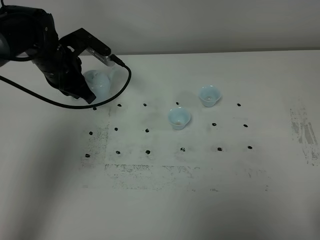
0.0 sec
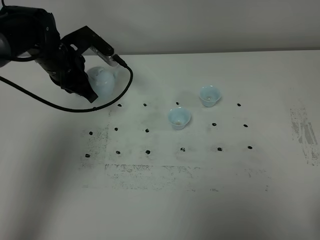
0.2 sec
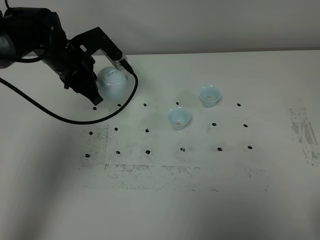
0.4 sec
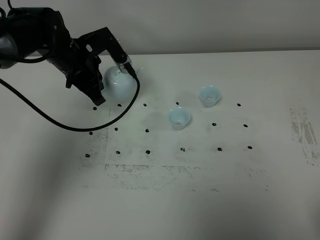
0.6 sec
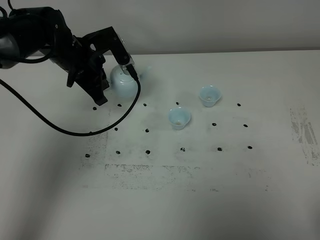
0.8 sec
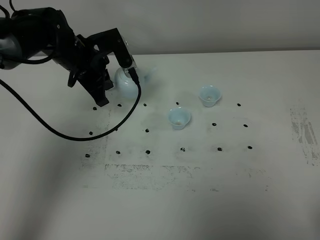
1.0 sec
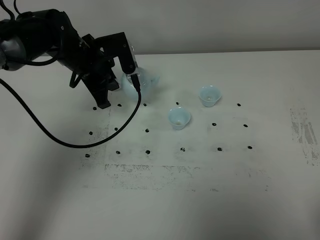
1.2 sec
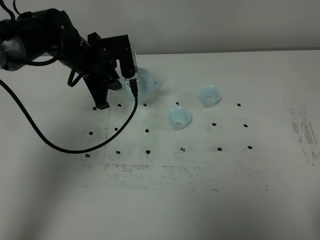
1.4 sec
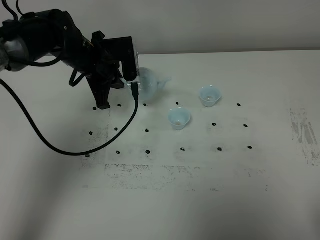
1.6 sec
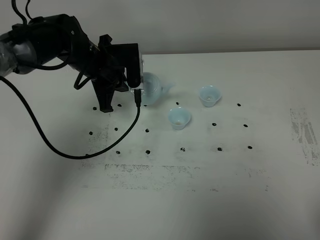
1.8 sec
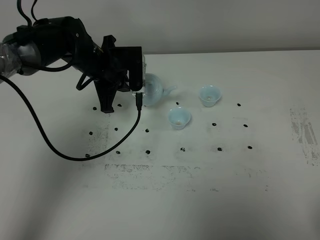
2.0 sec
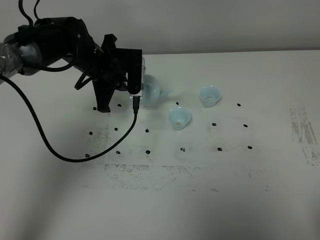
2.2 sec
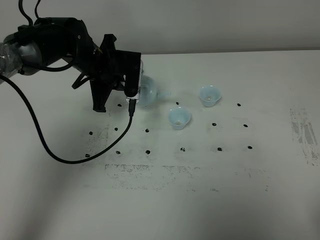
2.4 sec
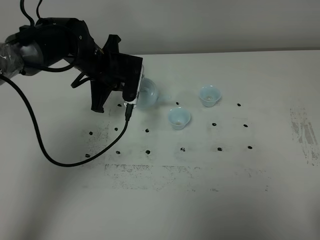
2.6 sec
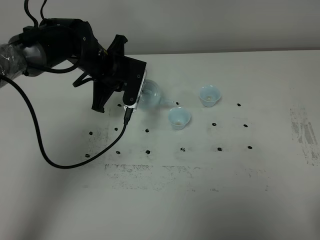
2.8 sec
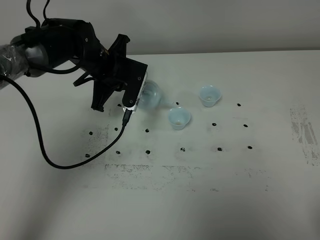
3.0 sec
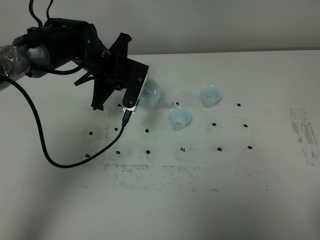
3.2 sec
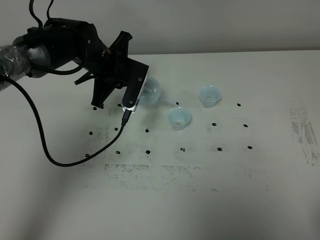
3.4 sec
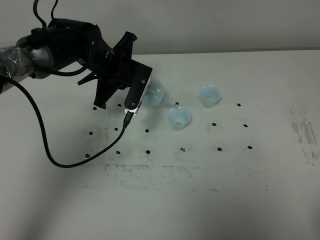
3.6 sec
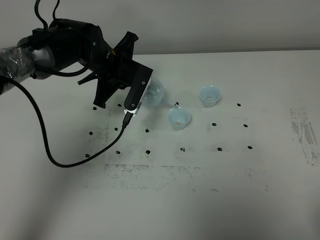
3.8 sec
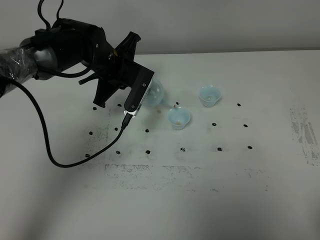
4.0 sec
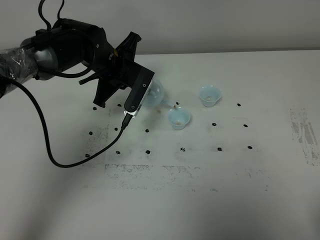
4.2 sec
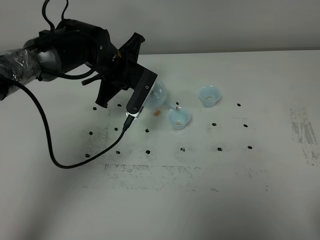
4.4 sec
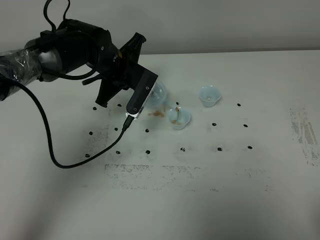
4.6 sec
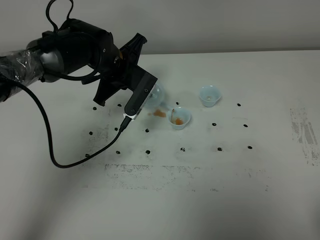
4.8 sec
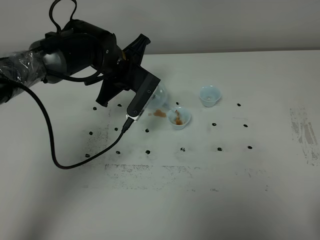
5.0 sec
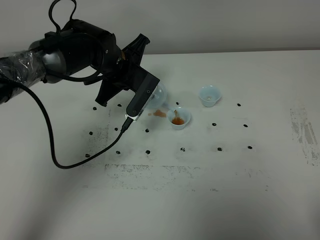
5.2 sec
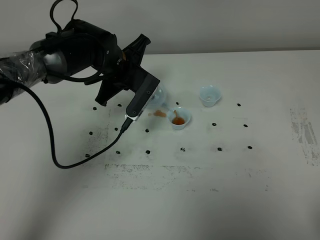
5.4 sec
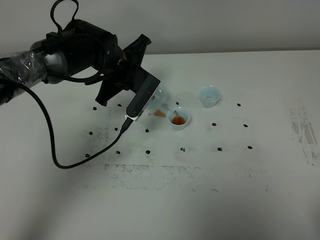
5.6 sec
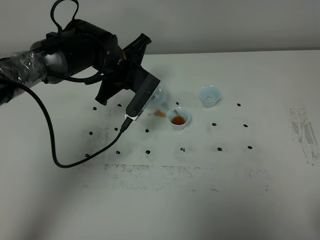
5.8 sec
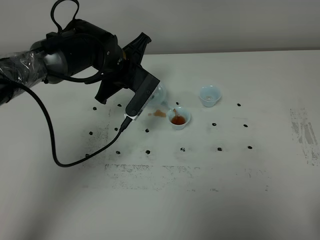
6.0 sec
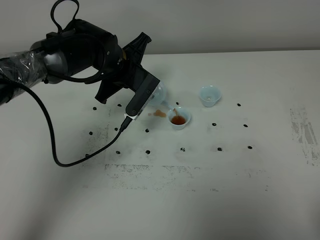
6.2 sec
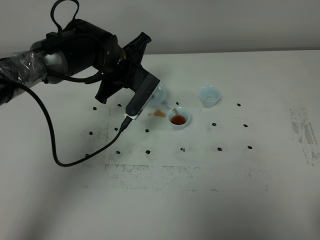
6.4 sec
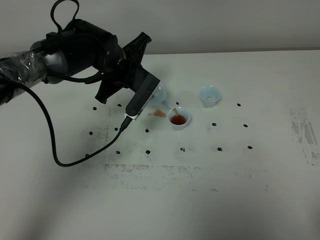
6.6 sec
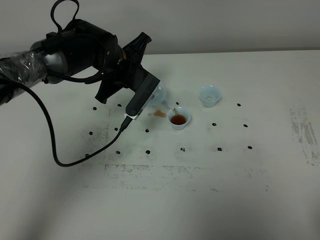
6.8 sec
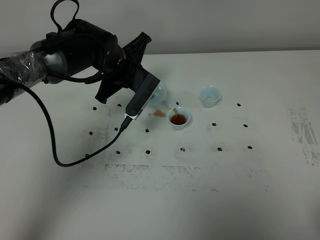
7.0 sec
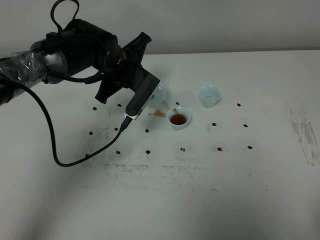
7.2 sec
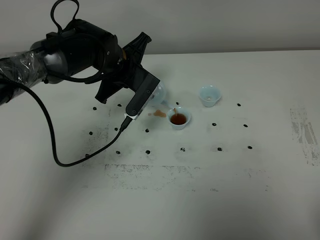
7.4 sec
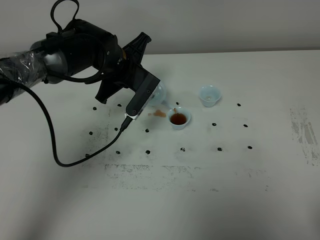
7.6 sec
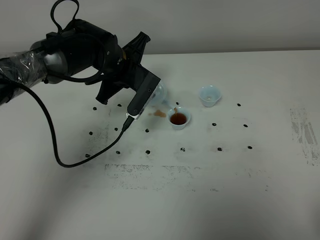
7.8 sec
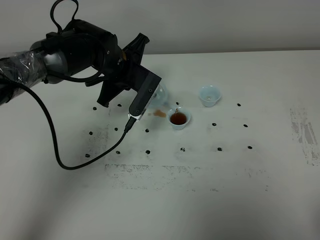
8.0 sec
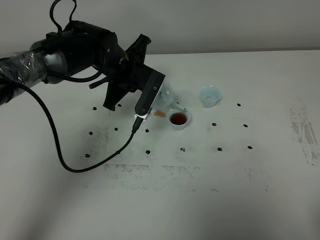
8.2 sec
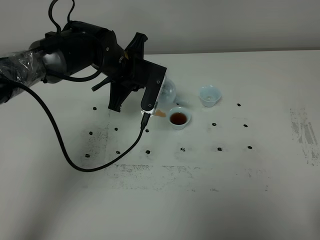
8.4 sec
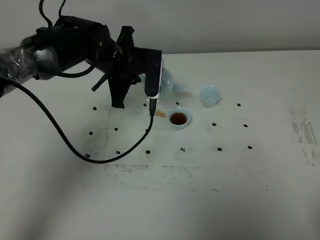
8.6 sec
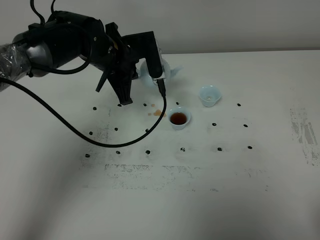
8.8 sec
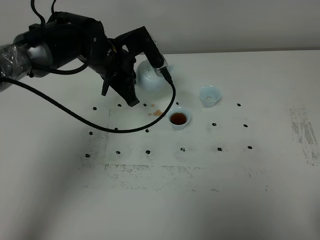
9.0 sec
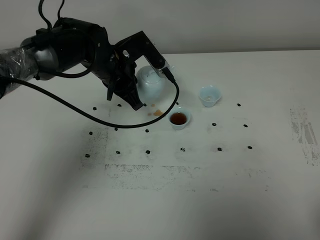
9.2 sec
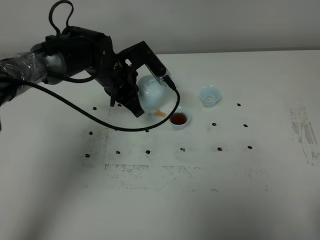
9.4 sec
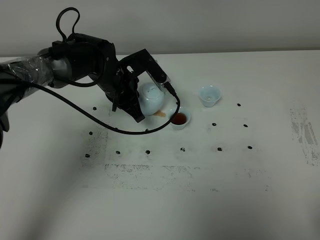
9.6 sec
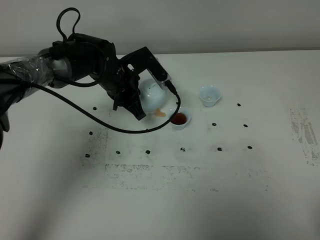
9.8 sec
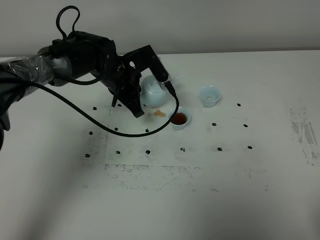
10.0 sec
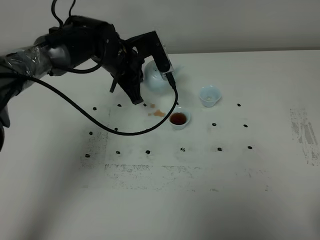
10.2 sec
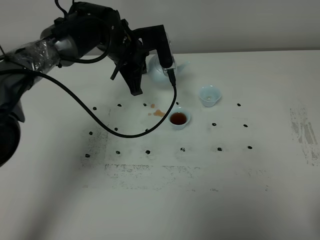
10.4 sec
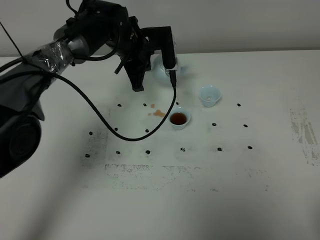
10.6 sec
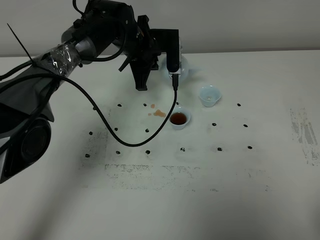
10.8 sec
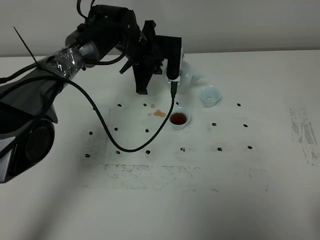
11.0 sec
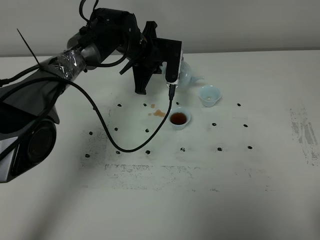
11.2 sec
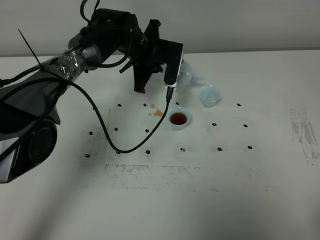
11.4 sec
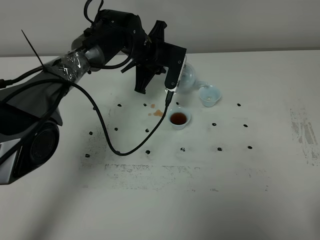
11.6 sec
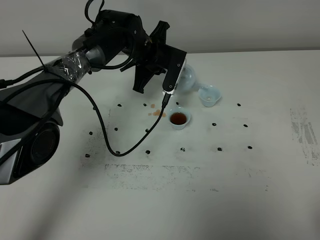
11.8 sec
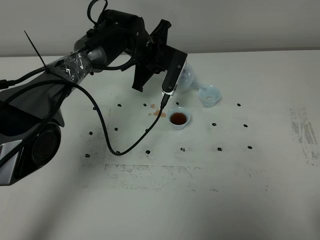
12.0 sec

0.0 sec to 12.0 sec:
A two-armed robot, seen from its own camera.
Task of the whole recording: grasp the blue porcelain teapot and pour the tea into the two blue porcelain teacups one by one, put the blue porcelain teapot back in its original place.
0.0 sec to 1.6 sec: The left gripper is displaced to the right by approximately 5 cm.
3.0 sec to 4.4 sec: There are only small adjustments of the grippers.
4.4 sec to 6.0 sec: The grippers make only small movements.
6.0 sec to 7.6 sec: Neither gripper changes place.
9.0 sec to 10.4 sec: The left gripper changes place by approximately 5 cm.
10.4 sec to 12.0 sec: The left gripper shifts by approximately 5 cm.

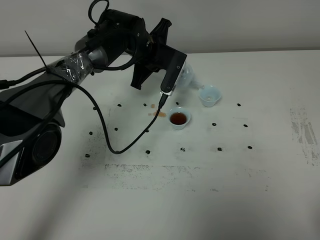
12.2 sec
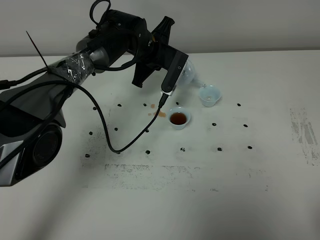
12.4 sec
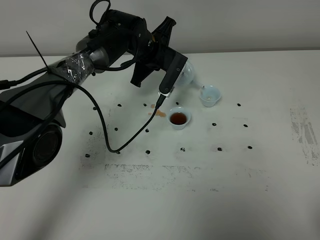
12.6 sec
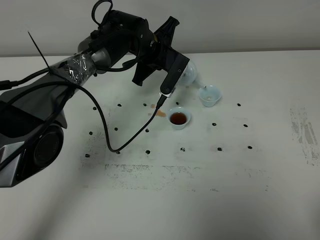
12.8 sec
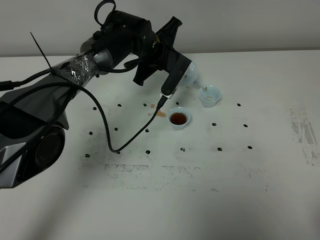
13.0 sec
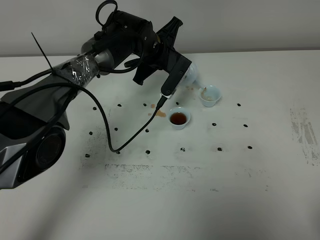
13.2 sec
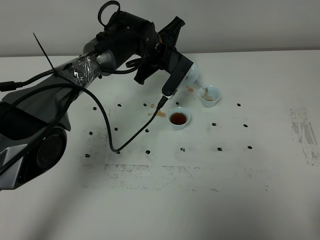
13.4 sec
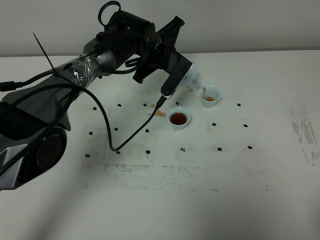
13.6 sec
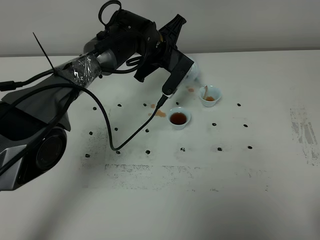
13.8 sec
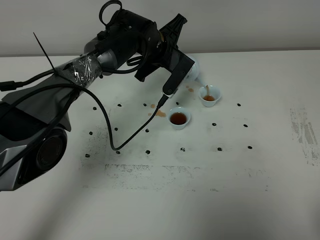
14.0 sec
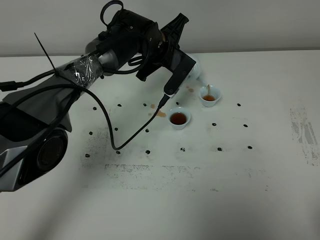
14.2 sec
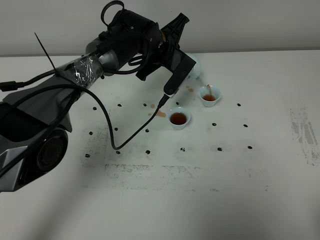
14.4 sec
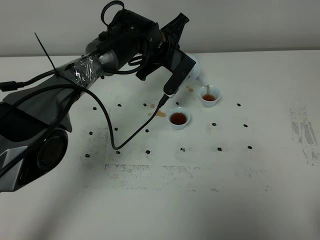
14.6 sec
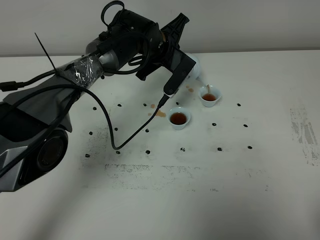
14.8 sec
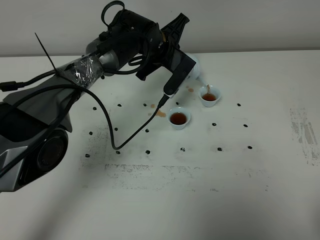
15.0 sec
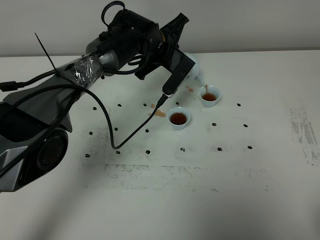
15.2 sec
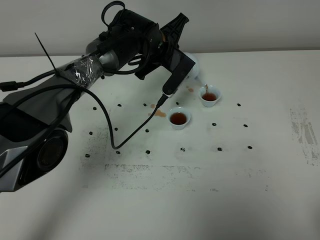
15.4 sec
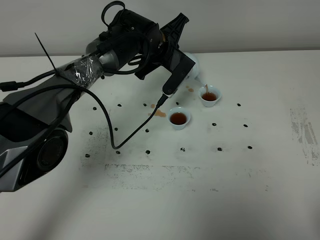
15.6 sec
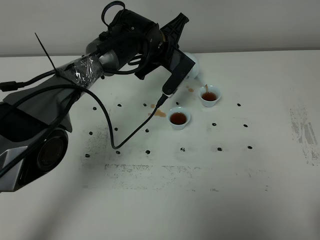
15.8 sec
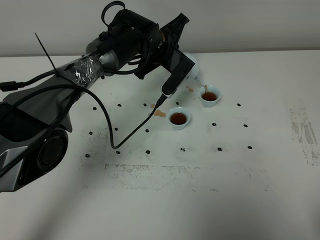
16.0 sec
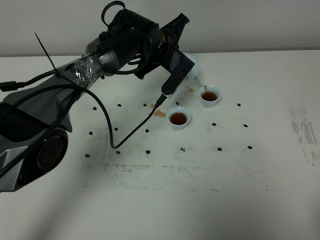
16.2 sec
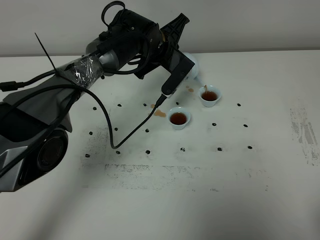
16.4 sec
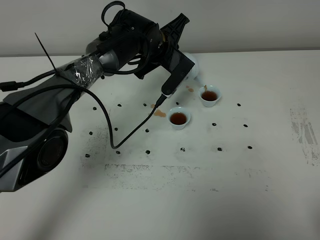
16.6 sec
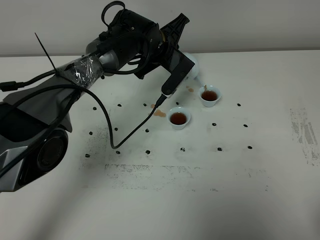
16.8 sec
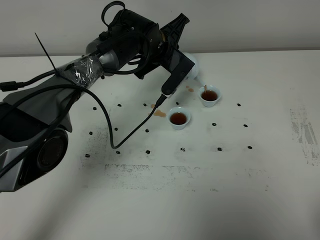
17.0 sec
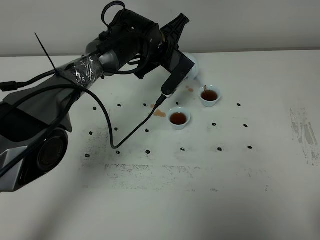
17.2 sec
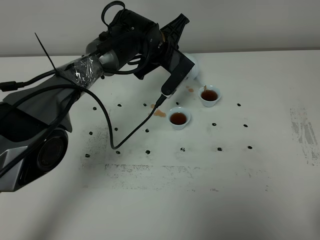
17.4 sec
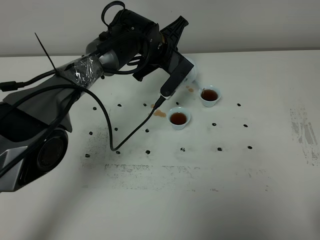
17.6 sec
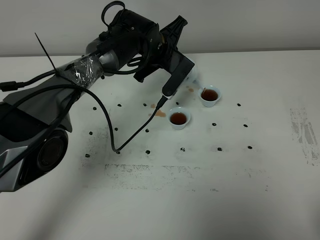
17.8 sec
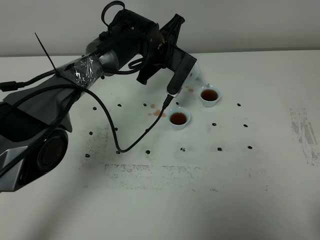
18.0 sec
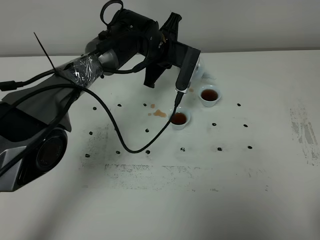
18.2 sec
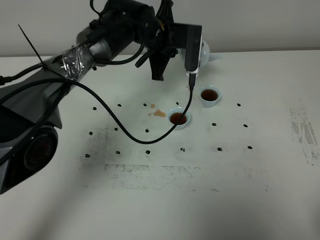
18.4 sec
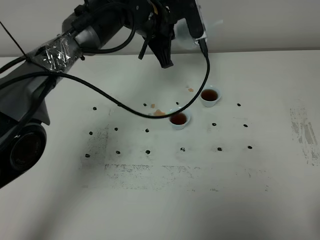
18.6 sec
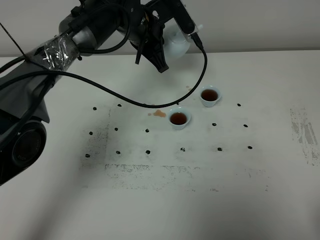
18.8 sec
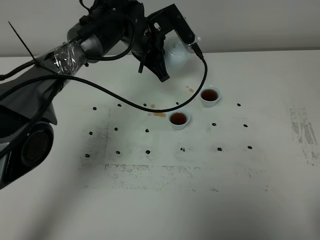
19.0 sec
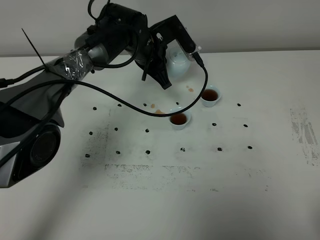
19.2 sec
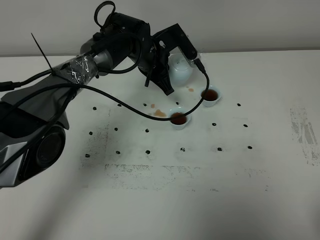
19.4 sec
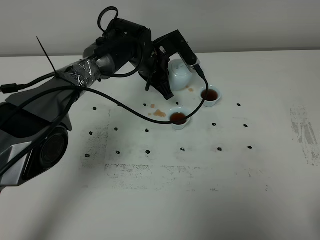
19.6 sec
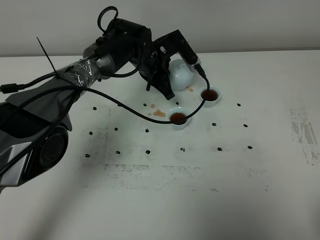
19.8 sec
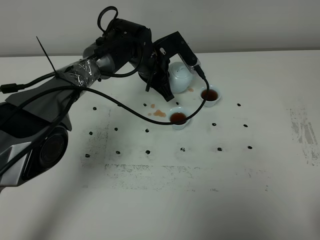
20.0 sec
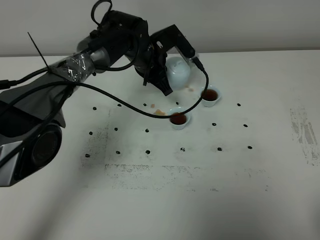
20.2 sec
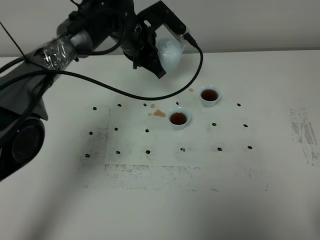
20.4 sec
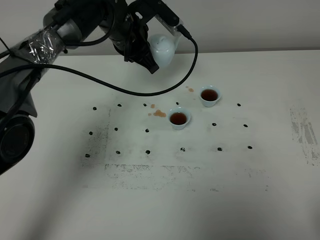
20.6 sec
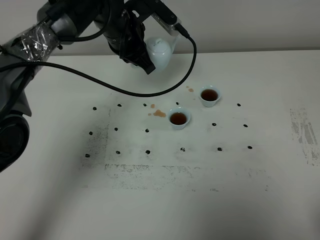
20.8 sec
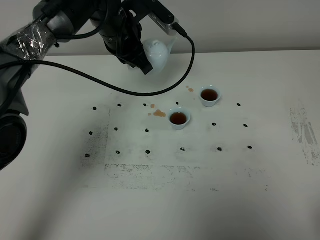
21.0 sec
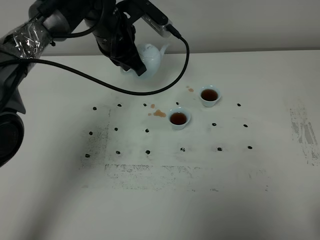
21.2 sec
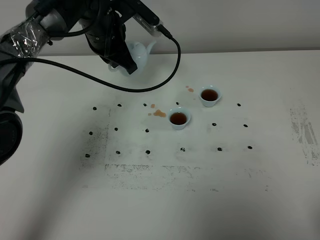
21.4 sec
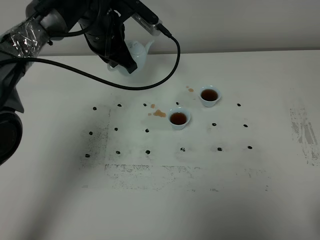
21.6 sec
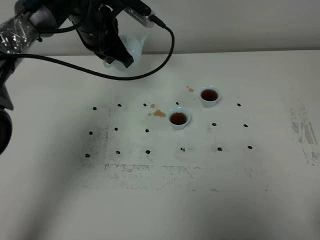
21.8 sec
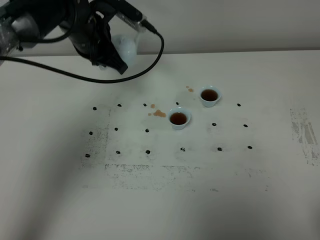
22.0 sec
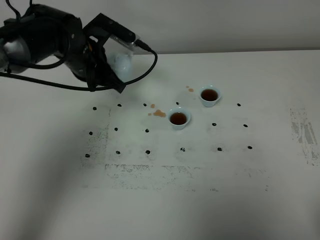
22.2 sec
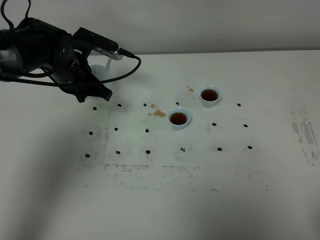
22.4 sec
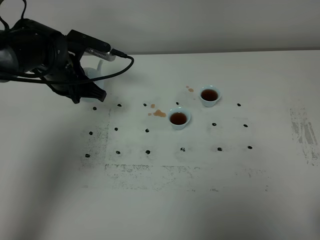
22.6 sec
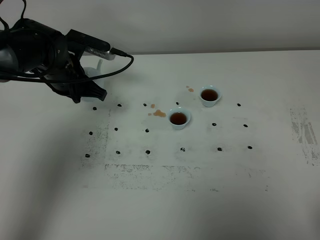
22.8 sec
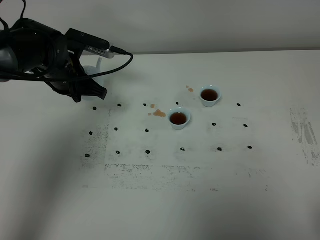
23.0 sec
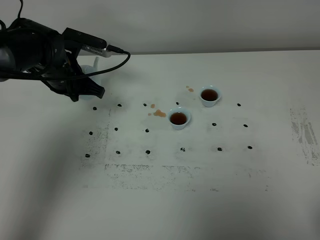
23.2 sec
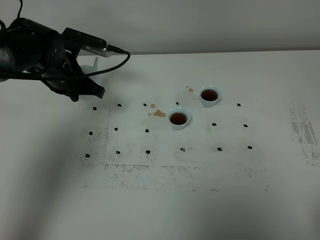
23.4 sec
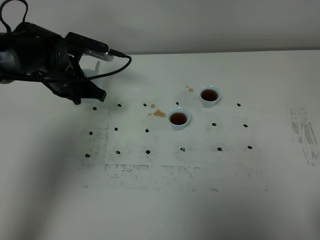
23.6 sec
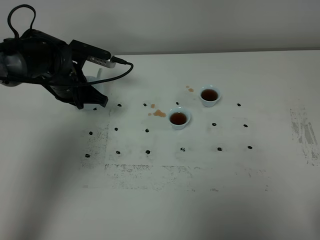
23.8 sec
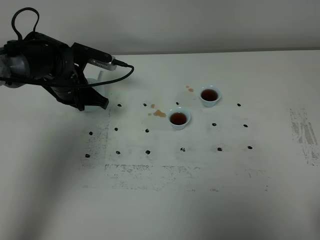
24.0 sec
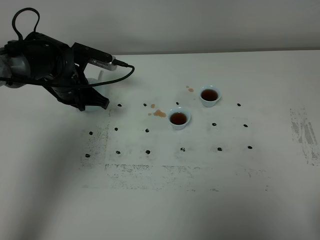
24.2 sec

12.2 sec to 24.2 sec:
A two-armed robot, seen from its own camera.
Task of the whole recording: grasp the blue porcelain teapot and pour the tea into the two blue porcelain teacups one by one, put the blue porcelain teapot back in its original place.
Step, 12.2 sec to 18.2 sec: Pour tea into the teacup with the left gripper.
12.2 sec to 13.8 sec: The grippers move only a little.
13.8 sec to 16.6 sec: The two grippers keep their place.
19.8 sec to 21.2 sec: The left gripper goes some 10 cm upward and to the left.
21.2 sec to 22.6 sec: The left gripper is displaced to the left and downward by approximately 10 cm.
22.6 sec to 24.2 sec: The grippers move only a little.
